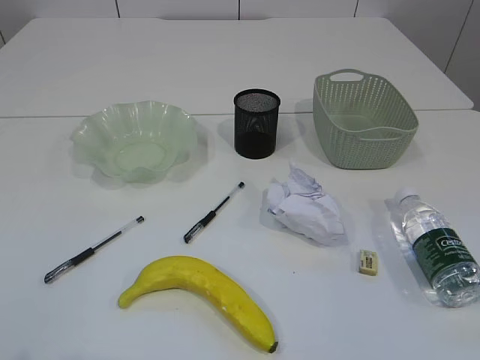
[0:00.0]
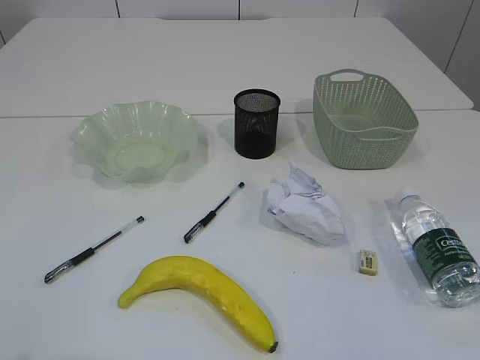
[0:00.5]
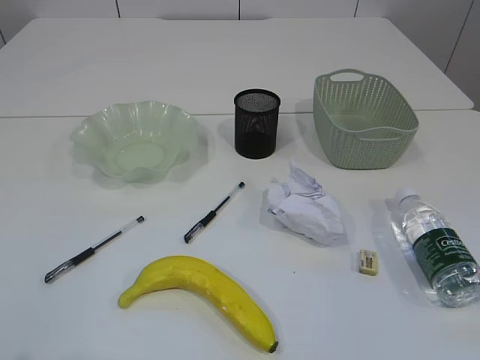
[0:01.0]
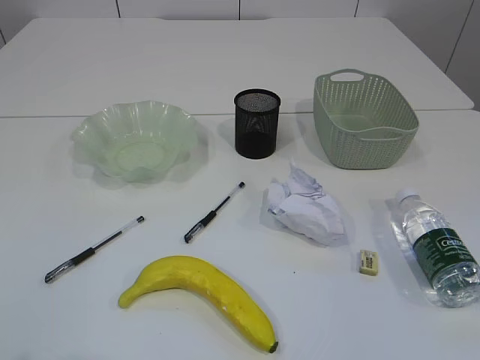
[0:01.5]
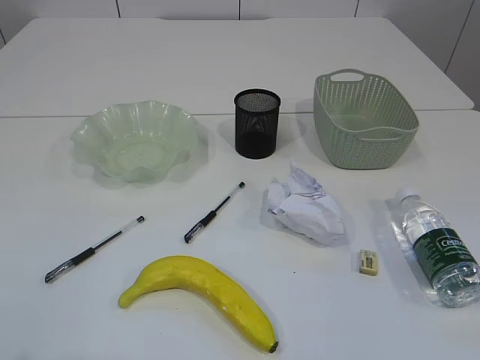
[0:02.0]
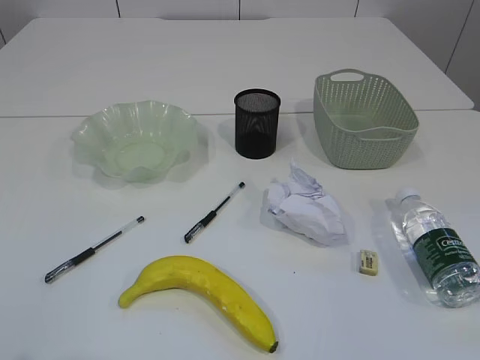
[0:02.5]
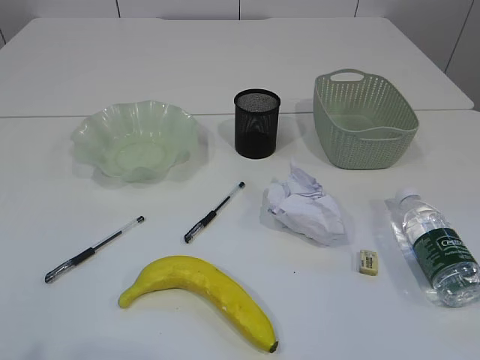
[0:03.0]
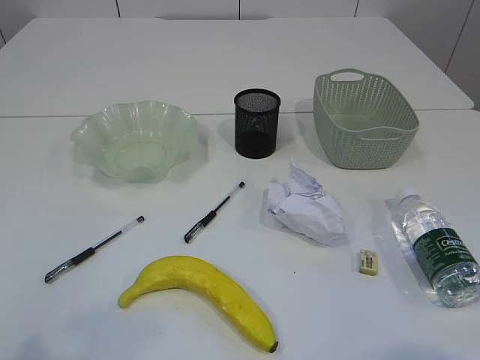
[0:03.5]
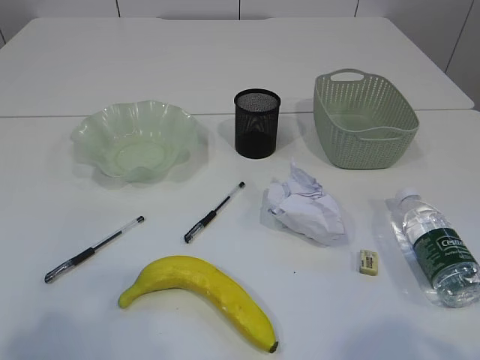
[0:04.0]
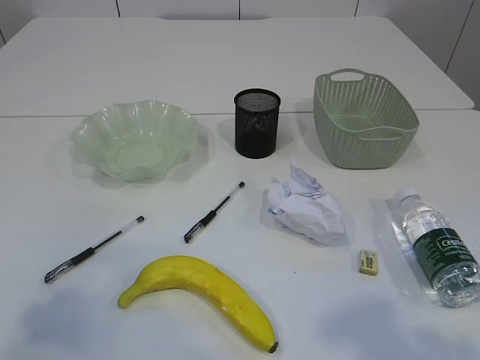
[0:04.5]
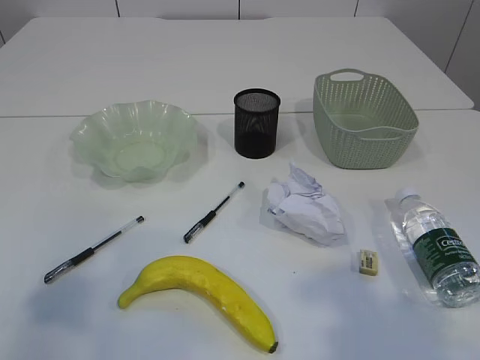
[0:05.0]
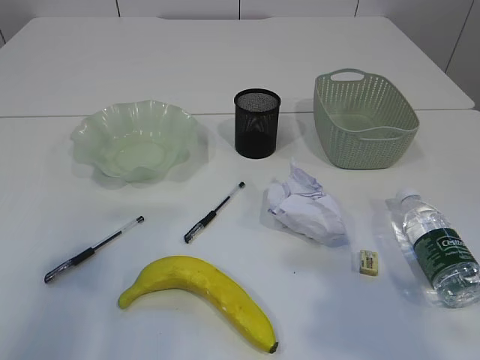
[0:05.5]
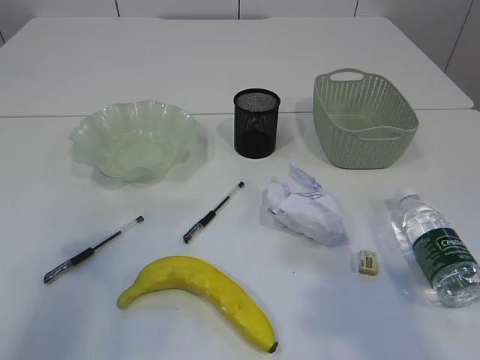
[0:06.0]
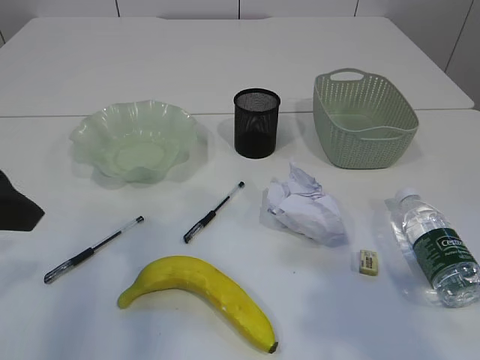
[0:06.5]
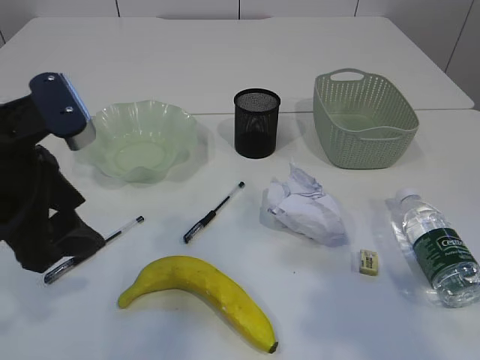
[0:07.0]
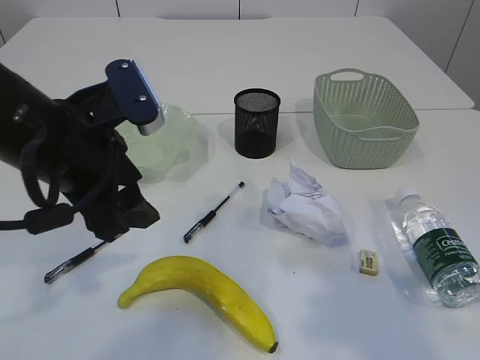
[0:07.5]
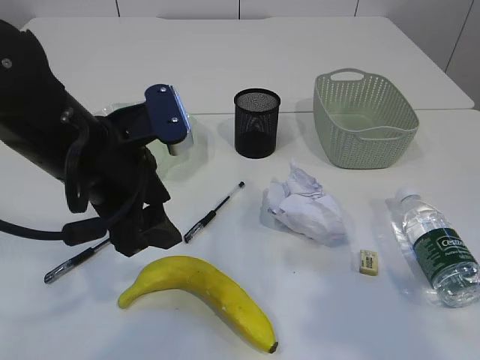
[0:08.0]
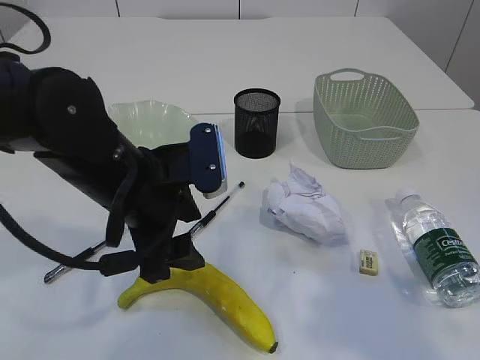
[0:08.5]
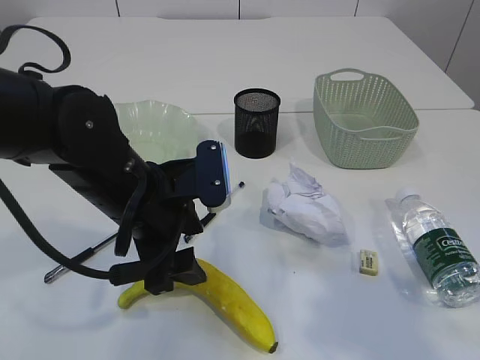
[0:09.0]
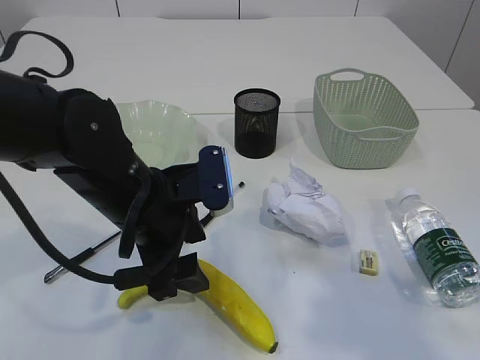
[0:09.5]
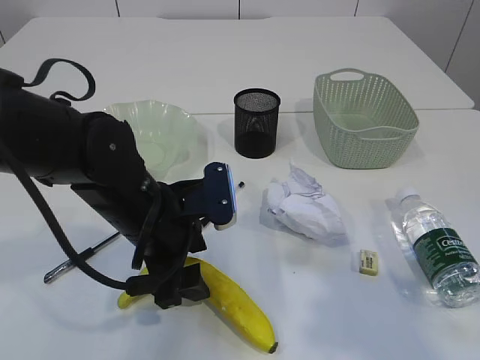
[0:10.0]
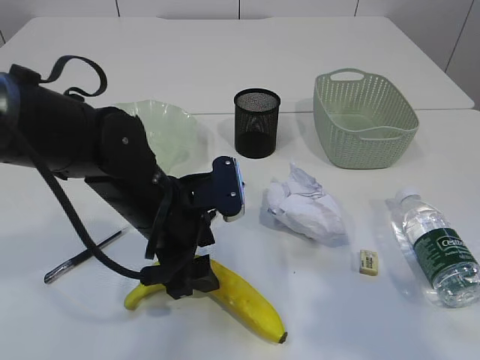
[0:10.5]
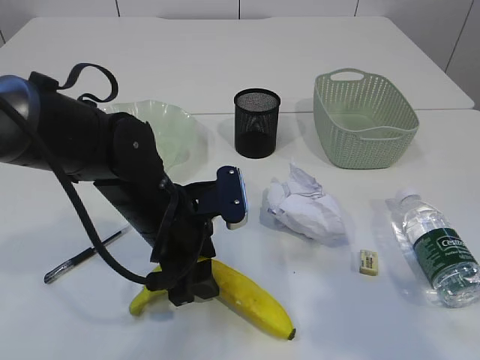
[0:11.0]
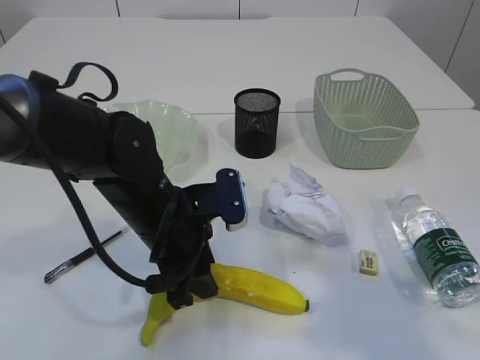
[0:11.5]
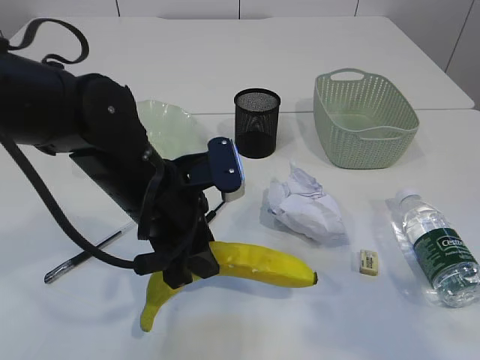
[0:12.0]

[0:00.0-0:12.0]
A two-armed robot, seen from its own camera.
0:02.0 to 0:04.0: The left gripper moves forward, about 10 cm.
0:04.0 to 0:06.0: Both grippers travel together forward, some 10 cm.
0:06.0 to 0:08.0: The left gripper is displaced to the right, forward and downward by about 20 cm.
0:08.0 to 0:10.0: The left gripper moves downward, about 10 cm.
0:10.0 to 0:12.0: The left gripper closes.

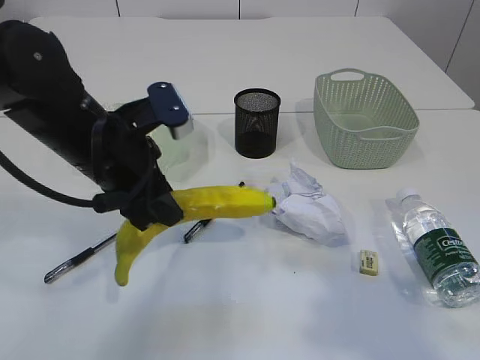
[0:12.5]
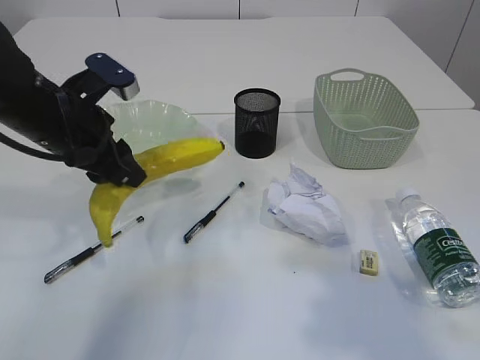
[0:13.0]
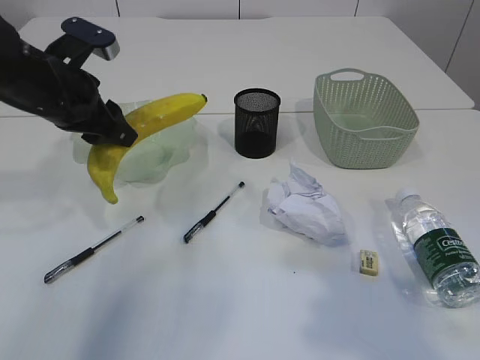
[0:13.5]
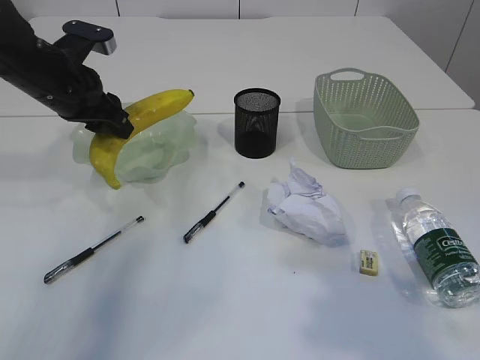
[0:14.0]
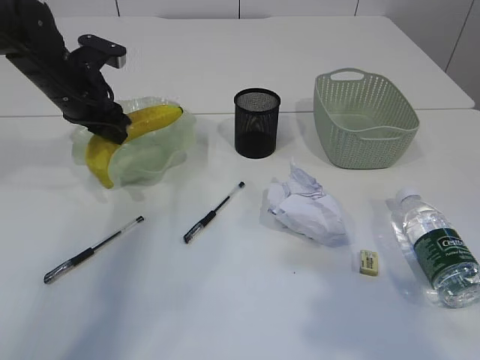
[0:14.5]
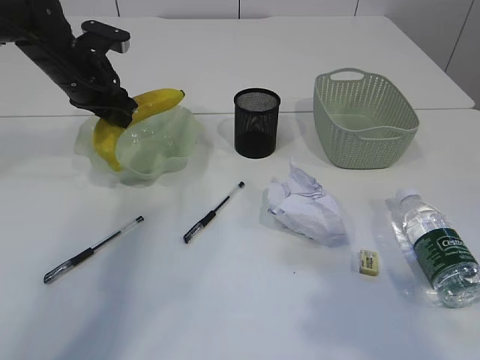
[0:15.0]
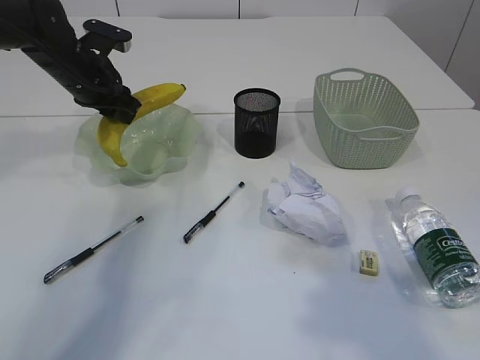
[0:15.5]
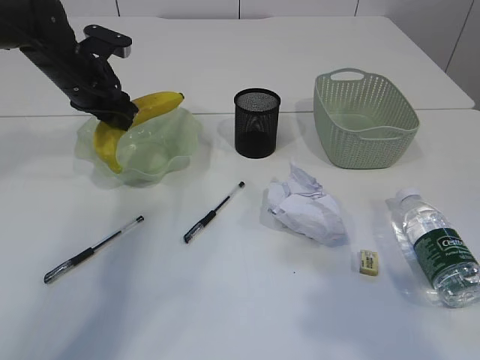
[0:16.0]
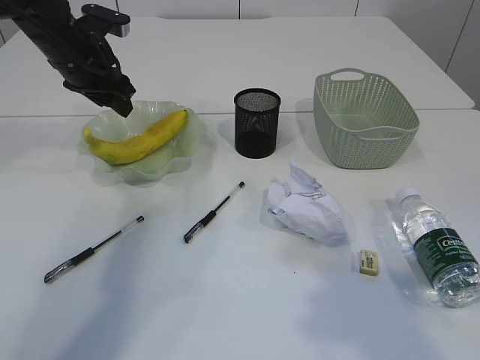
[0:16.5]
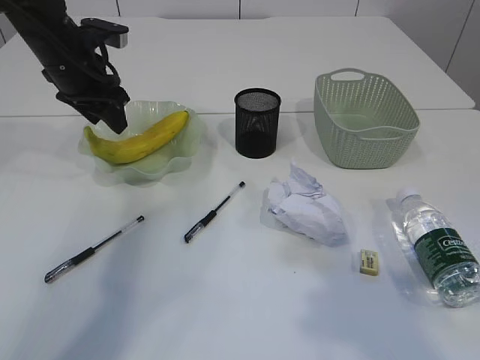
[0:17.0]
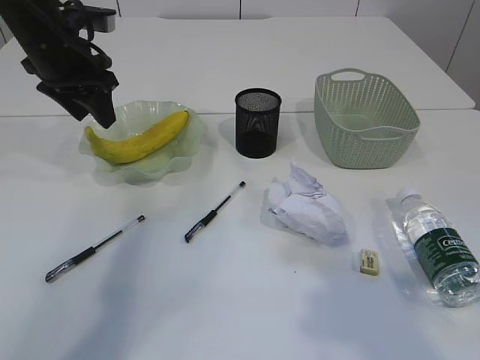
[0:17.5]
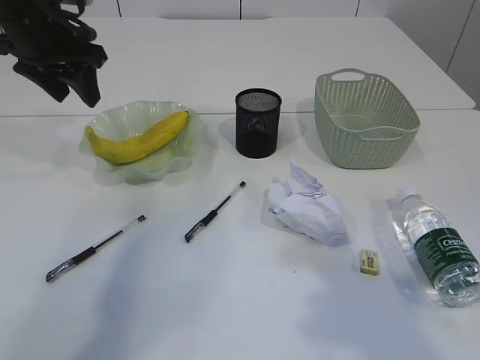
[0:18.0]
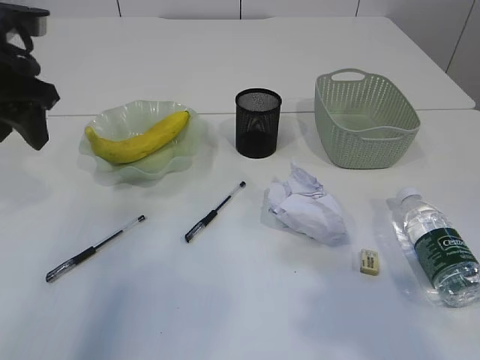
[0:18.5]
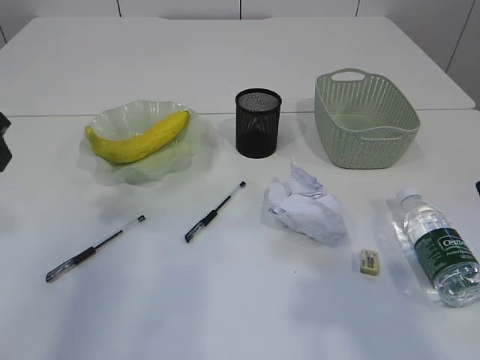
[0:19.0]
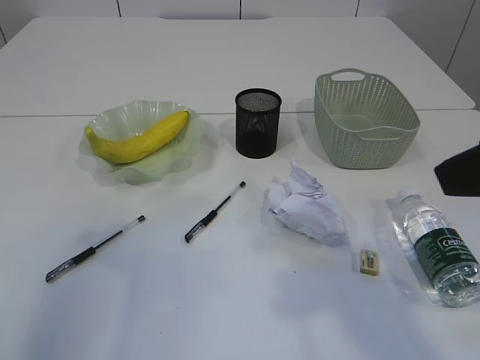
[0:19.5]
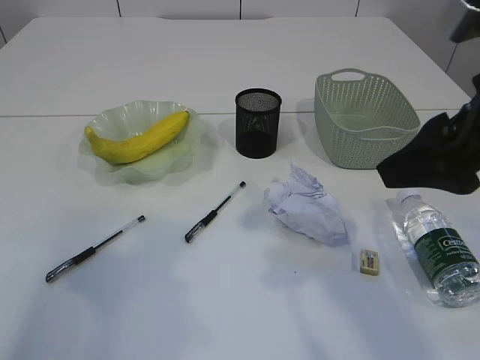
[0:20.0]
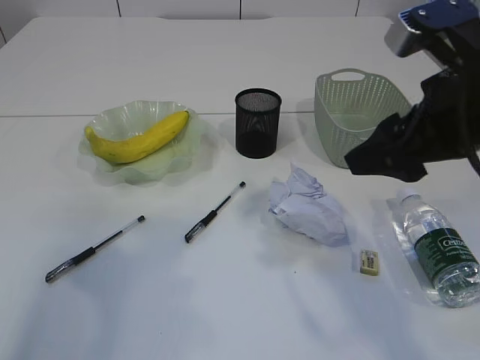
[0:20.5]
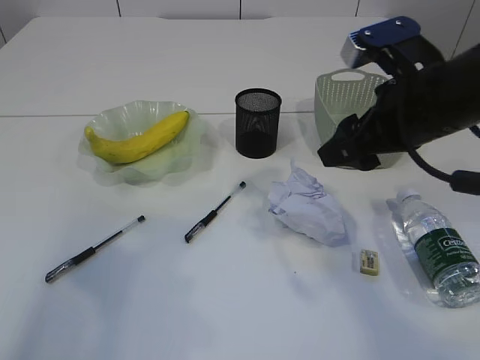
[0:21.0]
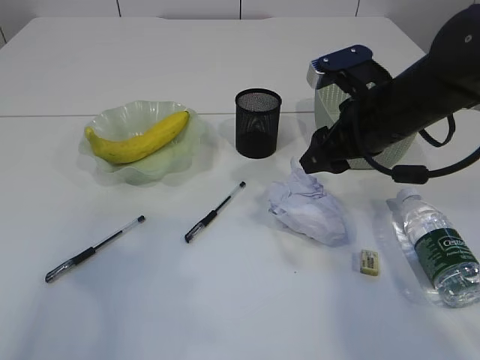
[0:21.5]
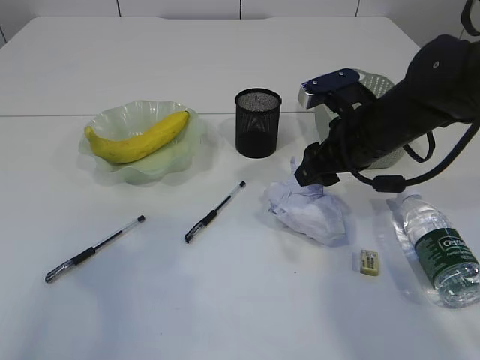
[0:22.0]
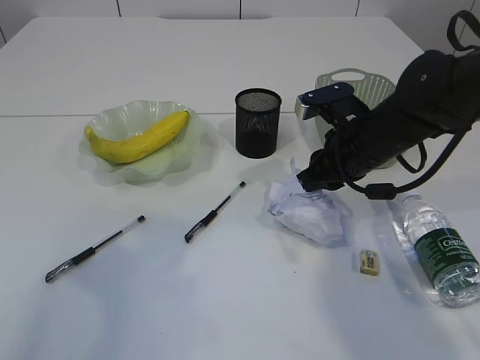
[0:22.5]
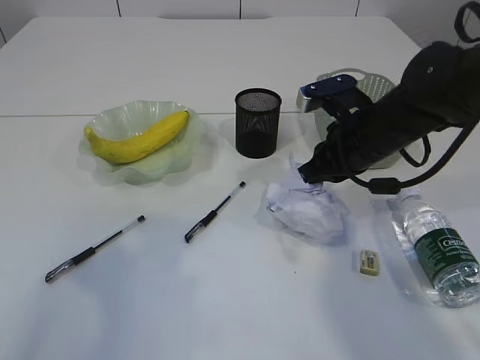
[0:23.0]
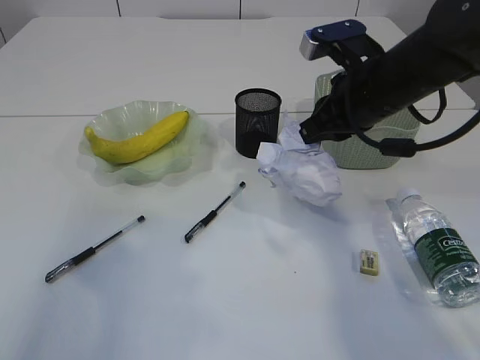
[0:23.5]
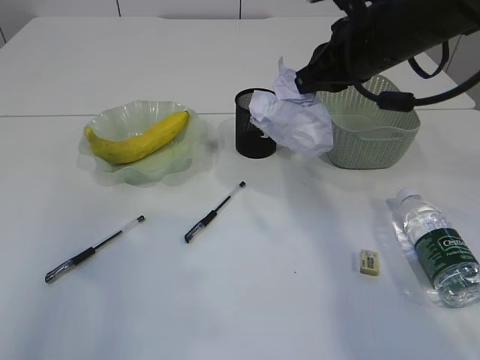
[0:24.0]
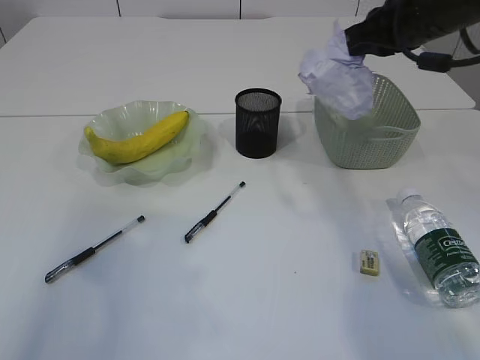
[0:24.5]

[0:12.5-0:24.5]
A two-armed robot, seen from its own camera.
Step, 0:12.5 to 0:17.0: Place the banana in the plate.
Step, 0:17.5 to 0:23.5: Pick up the waste paper.
0:12.5 to 0:14.5: The left gripper is displaced forward and to the left by approximately 20 cm.
0:14.5 to 0:16.5: The grippers stay close to where they were, moving slightly.
0:16.5 to 0:18.5: The left gripper travels backward and upward by some 15 cm.
0:18.5 to 0:20.5: The right gripper heads forward and downward, covering about 10 cm, while the left gripper heads backward, covering about 20 cm.
0:20.5 to 0:22.5: The right gripper goes some 15 cm downward and forward, and closes its fingers.
0:22.5 to 0:24.5: The right gripper moves upward, approximately 15 cm.

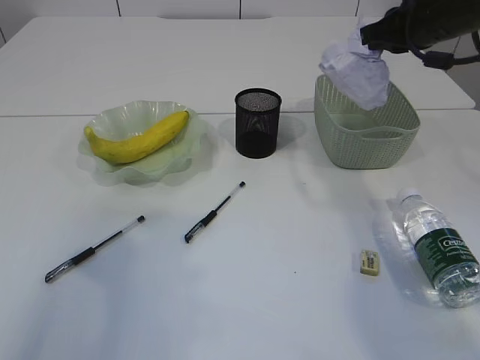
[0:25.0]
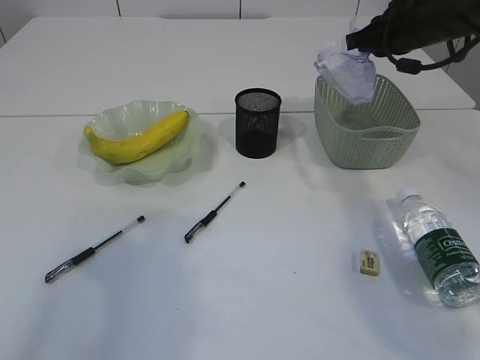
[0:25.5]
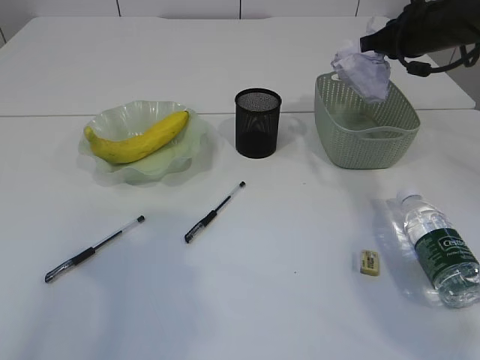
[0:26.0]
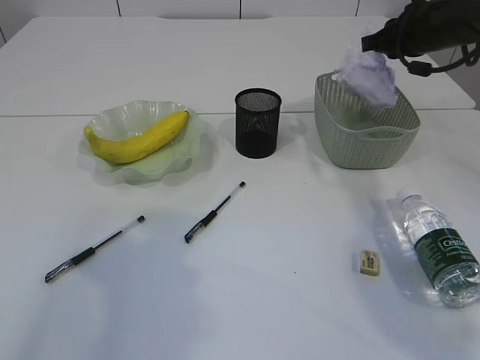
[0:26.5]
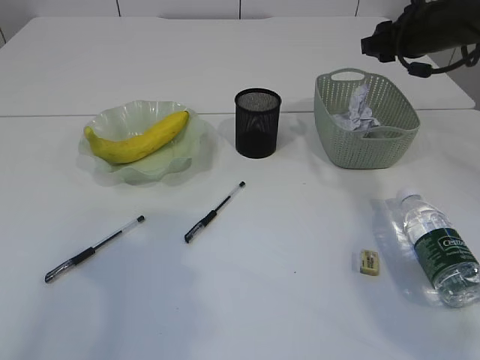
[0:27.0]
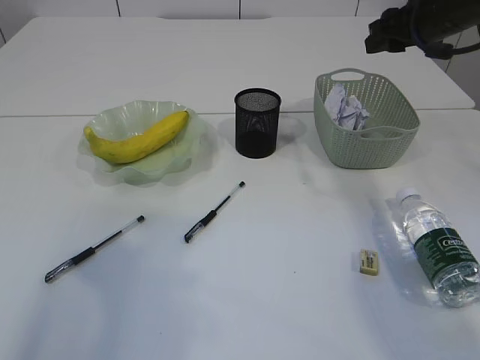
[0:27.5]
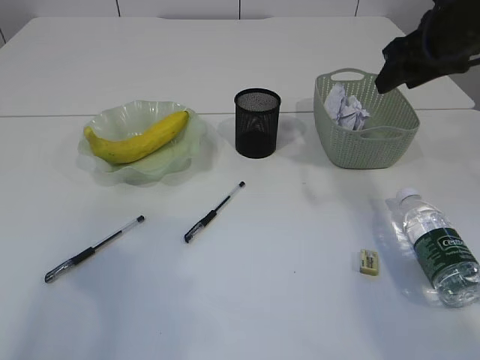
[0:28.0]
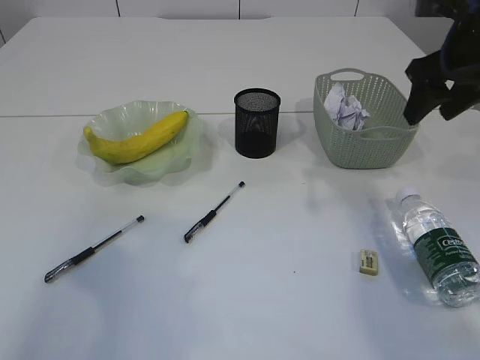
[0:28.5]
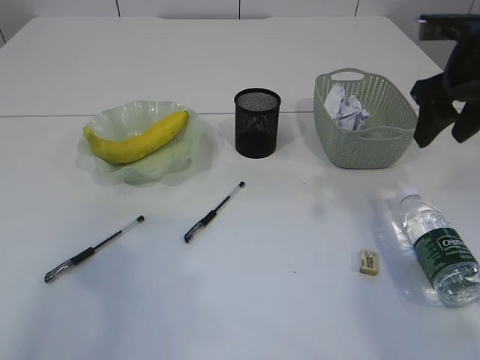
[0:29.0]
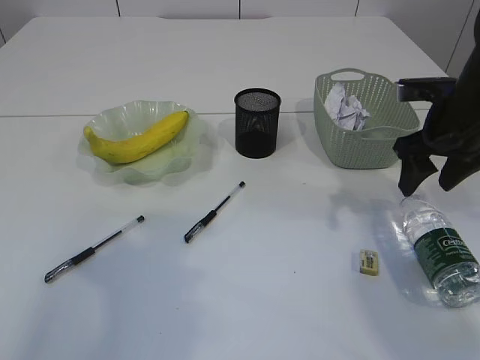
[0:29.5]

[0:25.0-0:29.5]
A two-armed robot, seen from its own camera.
Step, 0:25.0 to 0:27.5: Place the waste paper in the basket.
0:25.0 to 0:27.0: The right gripper travels forward by some 5 cm, and opens.
0:27.0 to 0:29.5: The right gripper moves backward, some 10 cm.
